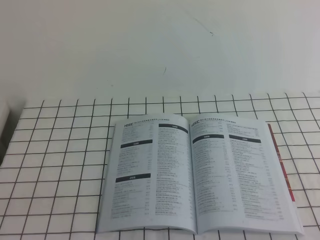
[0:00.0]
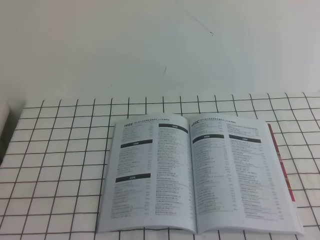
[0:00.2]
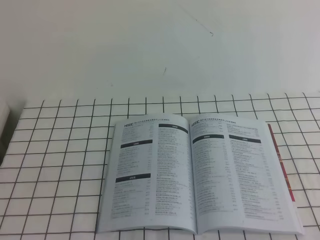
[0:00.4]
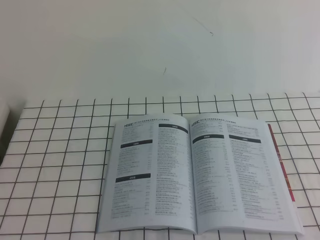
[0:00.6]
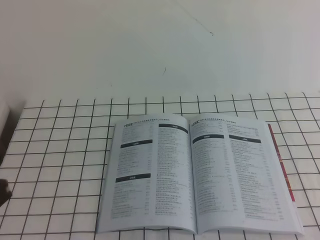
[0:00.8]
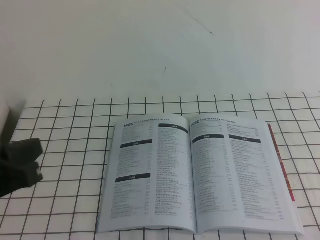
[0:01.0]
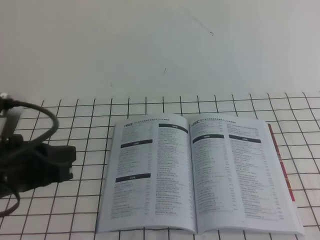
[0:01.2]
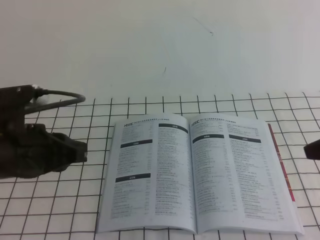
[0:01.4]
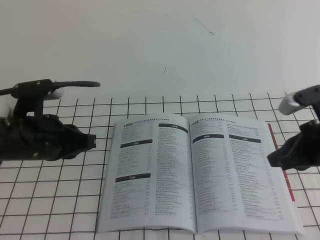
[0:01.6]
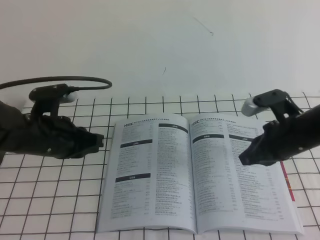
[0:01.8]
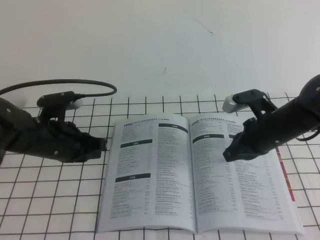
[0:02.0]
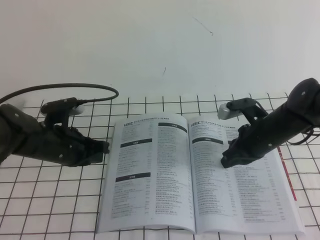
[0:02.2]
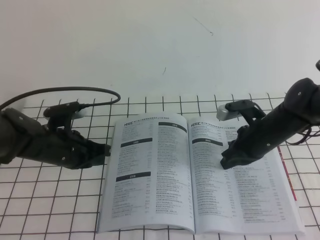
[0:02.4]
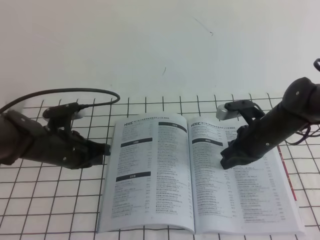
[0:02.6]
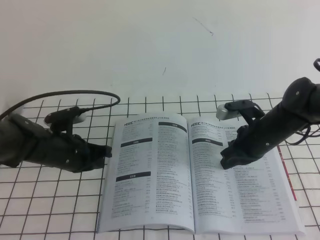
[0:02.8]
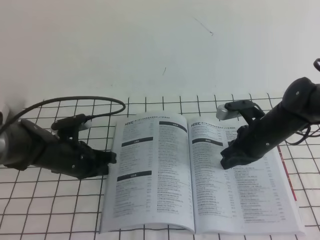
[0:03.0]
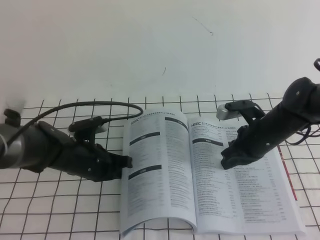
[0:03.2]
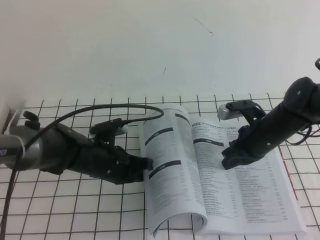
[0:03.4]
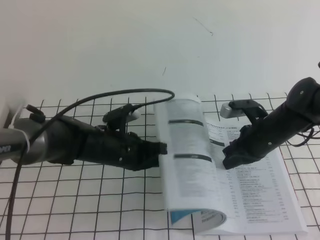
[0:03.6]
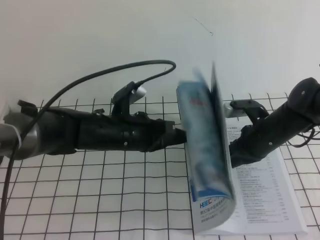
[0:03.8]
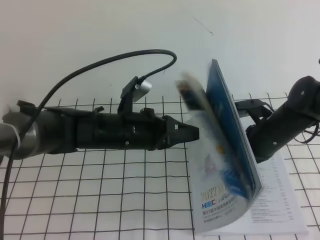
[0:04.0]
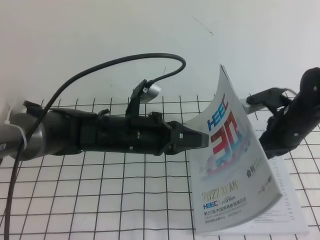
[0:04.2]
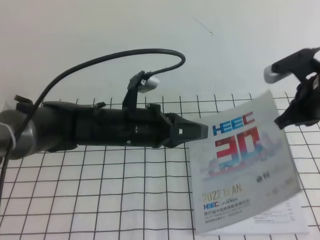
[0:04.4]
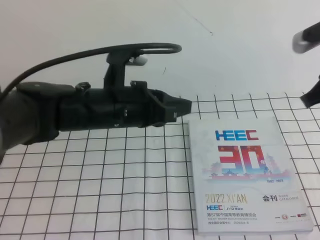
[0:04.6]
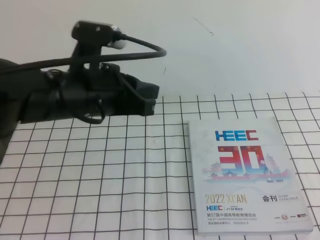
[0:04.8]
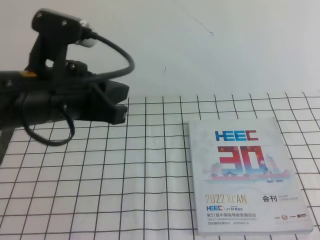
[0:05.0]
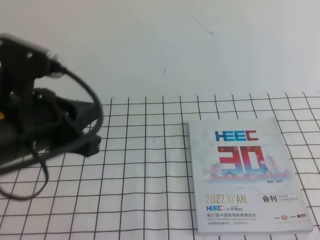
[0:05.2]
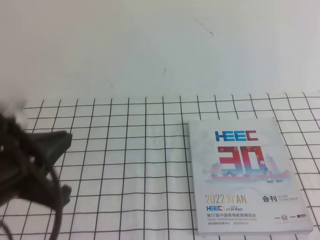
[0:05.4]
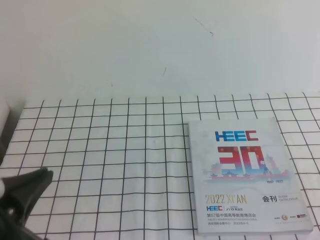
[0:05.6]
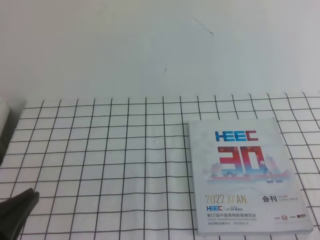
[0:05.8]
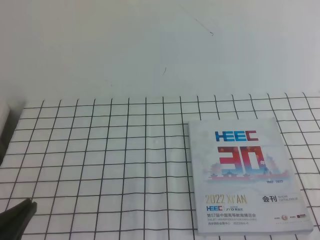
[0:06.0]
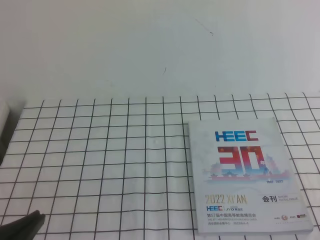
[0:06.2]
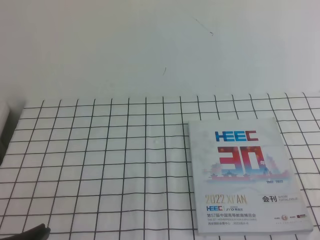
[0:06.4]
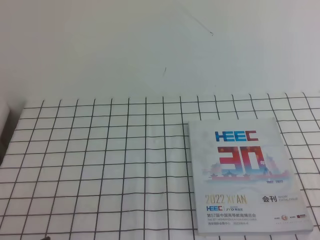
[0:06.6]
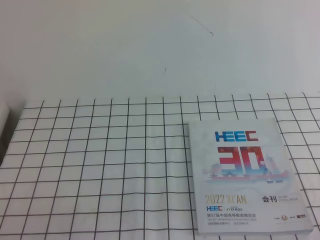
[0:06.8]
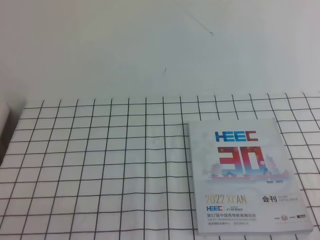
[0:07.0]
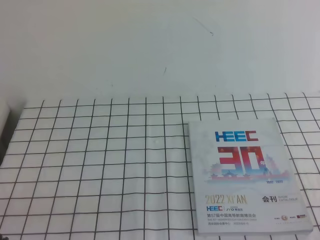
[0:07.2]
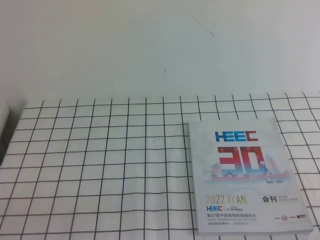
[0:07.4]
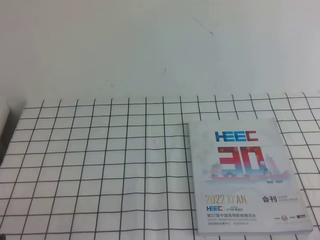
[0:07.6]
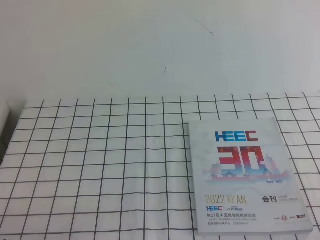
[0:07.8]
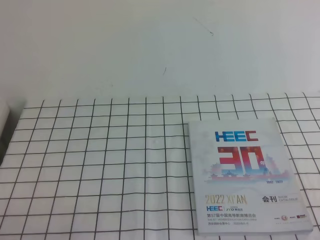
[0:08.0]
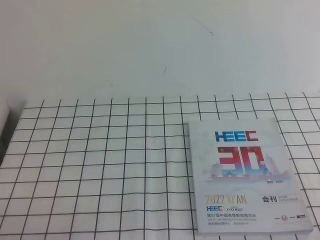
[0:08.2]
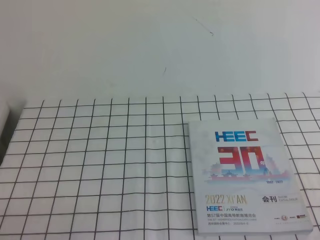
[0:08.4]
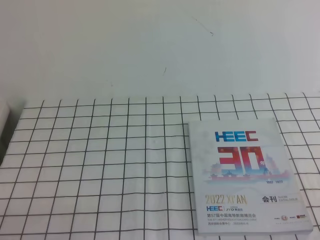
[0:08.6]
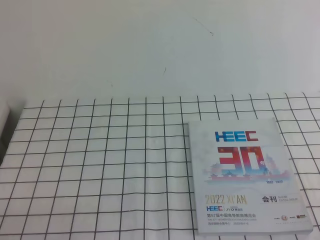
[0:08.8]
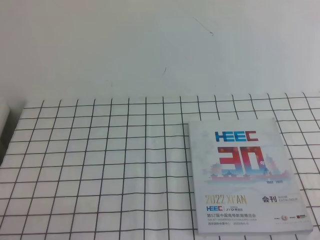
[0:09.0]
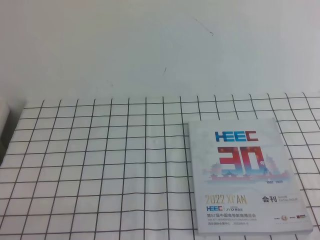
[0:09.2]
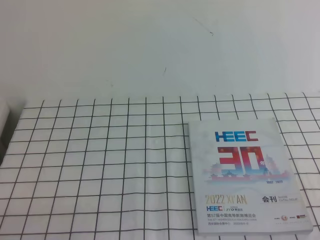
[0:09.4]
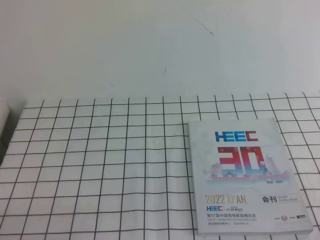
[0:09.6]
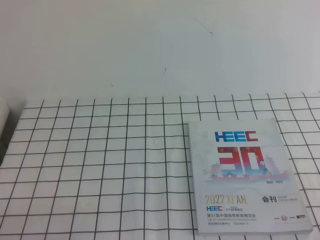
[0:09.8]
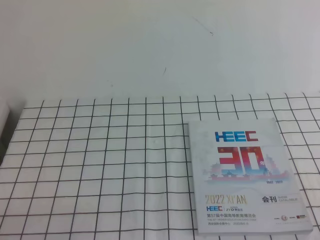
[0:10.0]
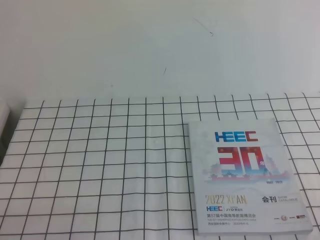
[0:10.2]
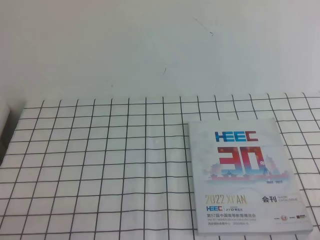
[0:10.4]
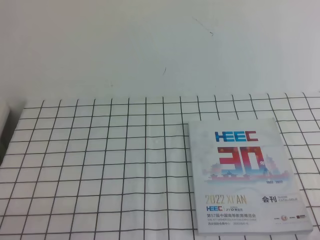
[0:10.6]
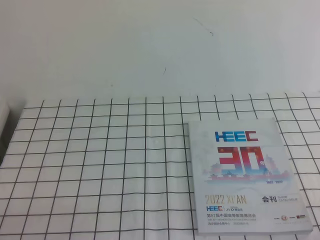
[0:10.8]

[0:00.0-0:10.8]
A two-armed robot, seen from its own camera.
Task of the whole recording: on the white tablecloth, hold the book with one hand and close it with the other.
Step, 0:00.0 to 0:10.8: Close the open book.
0:00.0 to 0:01.6: The grippers both shift forward by about 25 cm.
0:01.6 to 0:03.0: The left gripper moves downward and forward, roughly 15 cm; the right gripper is displaced downward, forward and to the left by approximately 15 cm.
0:03.0 to 0:04.6: The right gripper moves upward, about 20 cm; the left gripper is displaced upward and to the right by some 15 cm.
0:04.6 to 0:06.2: The left gripper moves backward and to the left, approximately 30 cm; the right gripper is displaced backward by approximately 30 cm.
0:06.2 to 0:07.8: The left gripper is displaced downward by some 5 cm.
